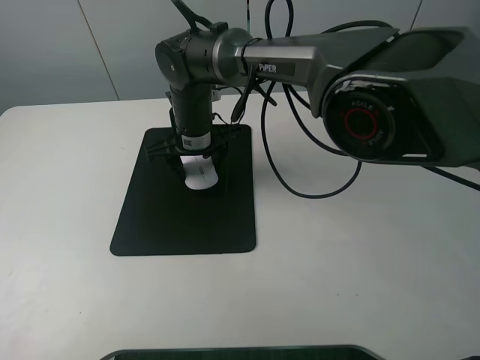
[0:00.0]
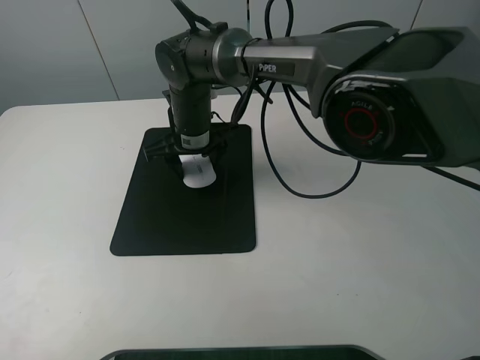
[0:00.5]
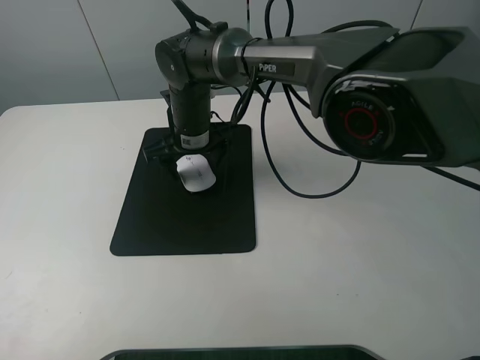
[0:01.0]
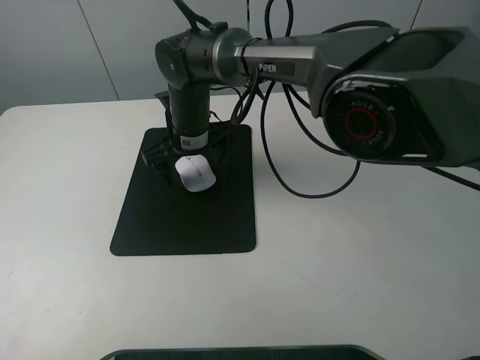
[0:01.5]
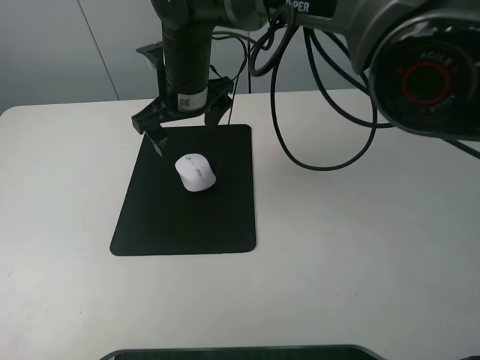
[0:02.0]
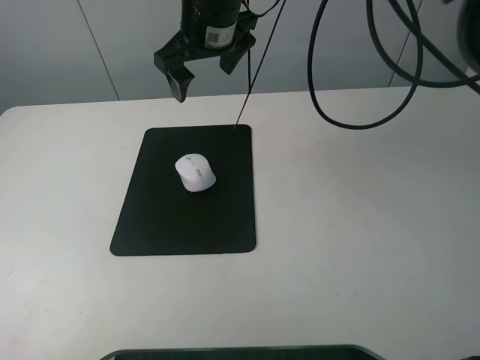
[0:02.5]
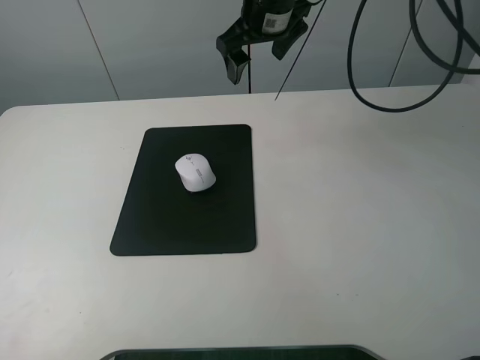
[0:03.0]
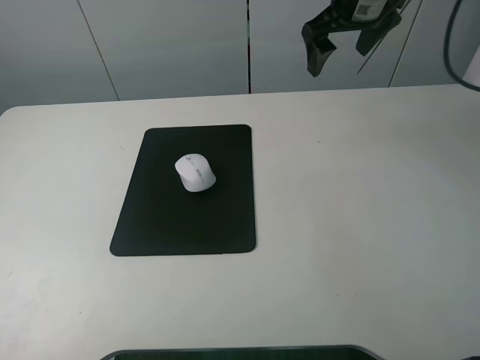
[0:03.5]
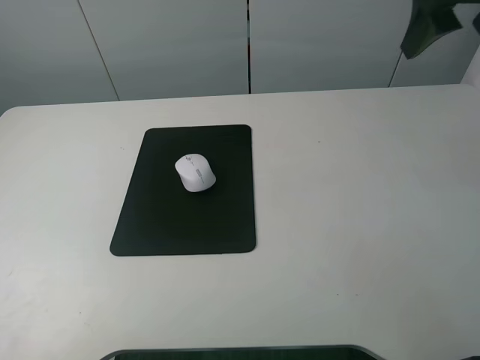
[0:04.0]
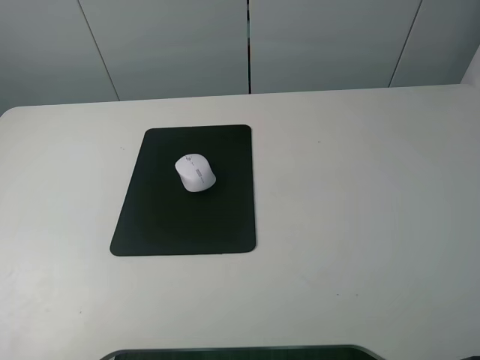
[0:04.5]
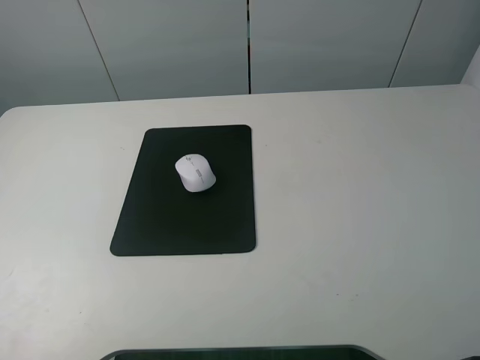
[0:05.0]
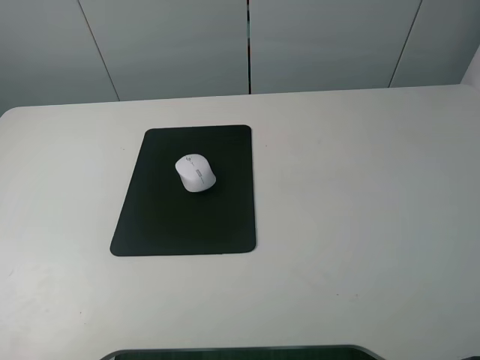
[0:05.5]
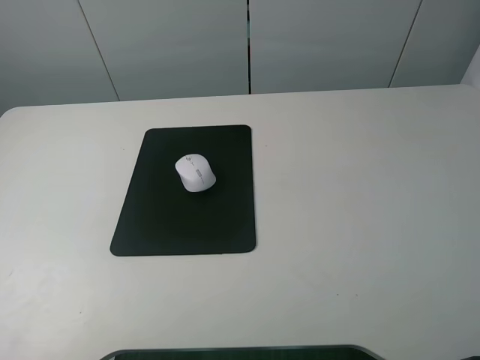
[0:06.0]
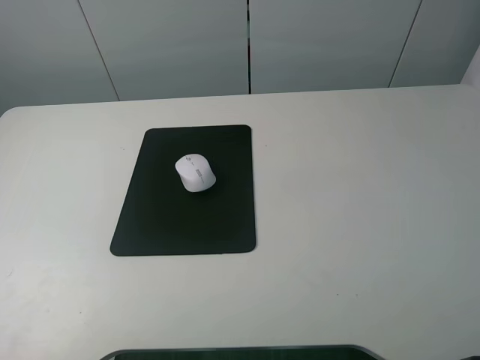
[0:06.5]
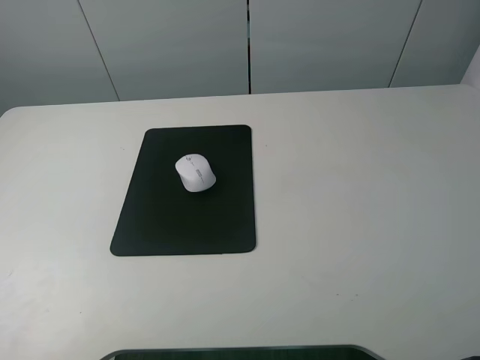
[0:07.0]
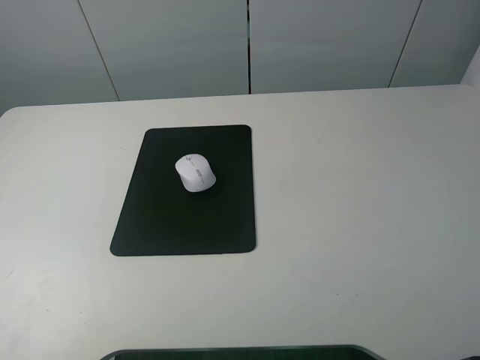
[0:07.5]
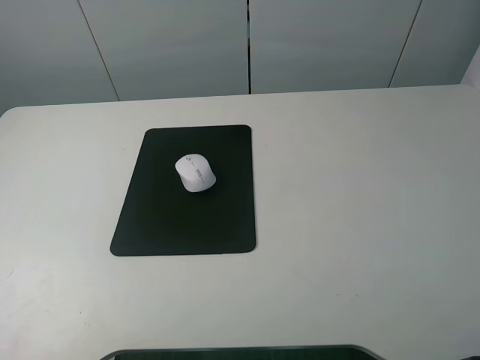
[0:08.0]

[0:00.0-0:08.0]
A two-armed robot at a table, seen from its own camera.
0:00.0 to 0:02.0: The right gripper heads upward, covering some 10 cm, and opens up.
0:02.0 to 0:04.0: The right gripper goes about 35 cm to the right and upward.
0:04.0 to 0:06.0: The right gripper is displaced backward by roughly 35 cm.
